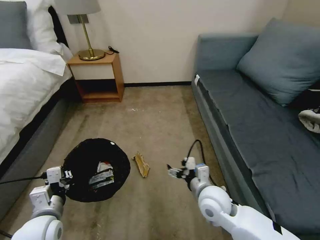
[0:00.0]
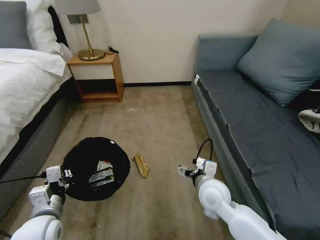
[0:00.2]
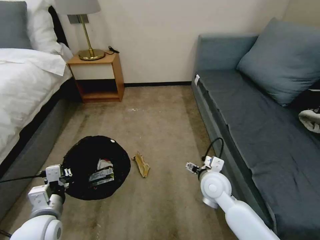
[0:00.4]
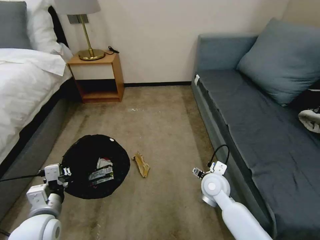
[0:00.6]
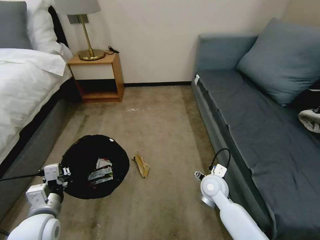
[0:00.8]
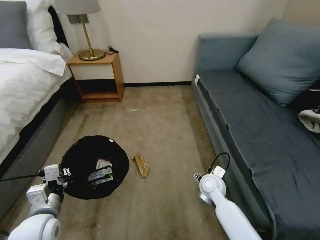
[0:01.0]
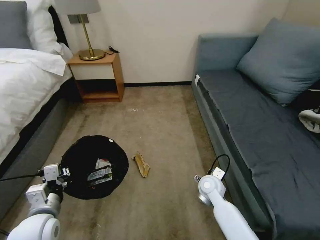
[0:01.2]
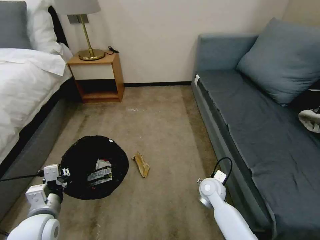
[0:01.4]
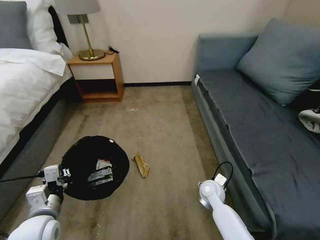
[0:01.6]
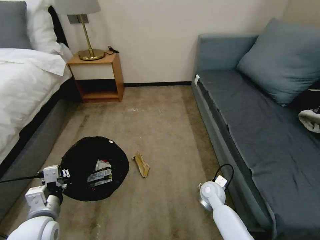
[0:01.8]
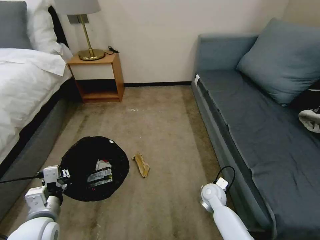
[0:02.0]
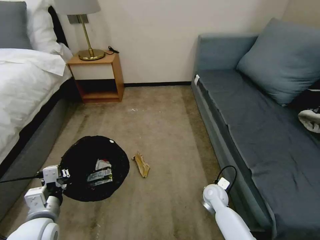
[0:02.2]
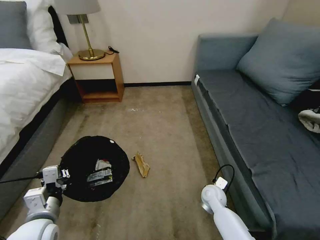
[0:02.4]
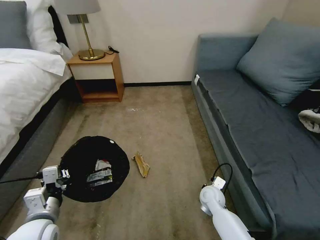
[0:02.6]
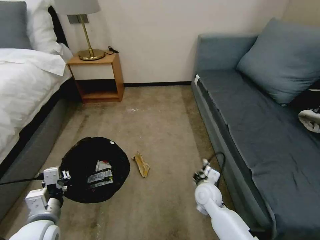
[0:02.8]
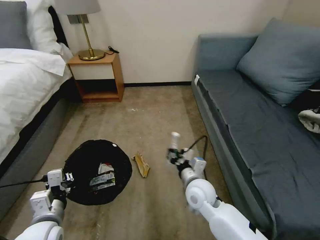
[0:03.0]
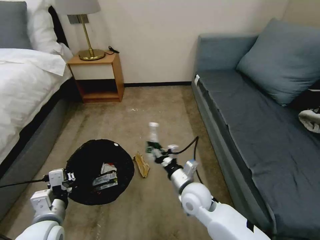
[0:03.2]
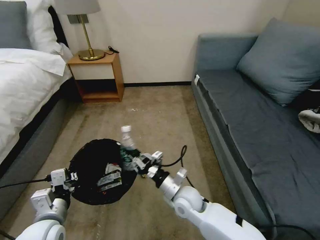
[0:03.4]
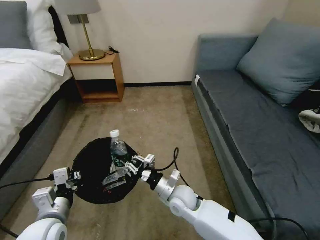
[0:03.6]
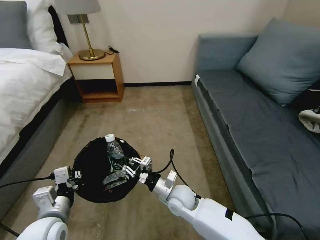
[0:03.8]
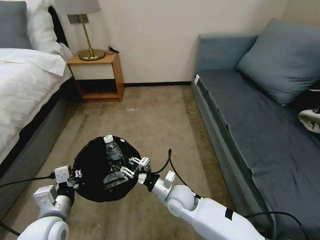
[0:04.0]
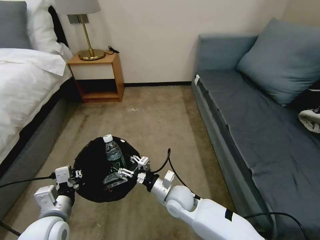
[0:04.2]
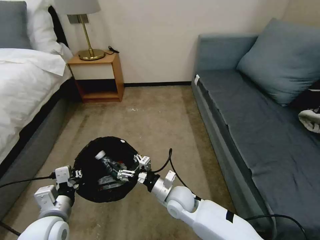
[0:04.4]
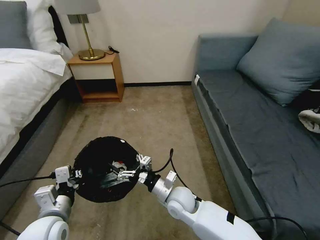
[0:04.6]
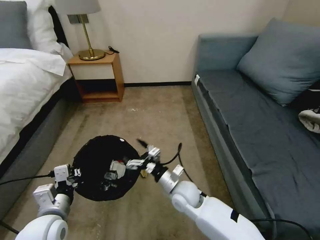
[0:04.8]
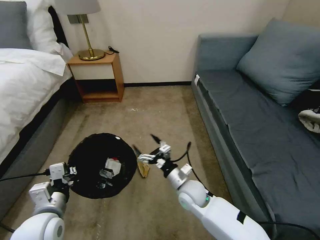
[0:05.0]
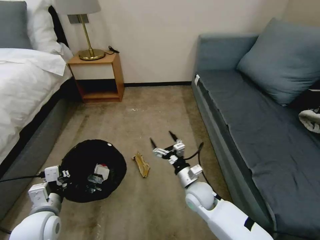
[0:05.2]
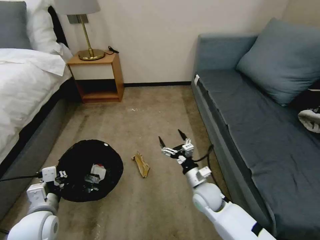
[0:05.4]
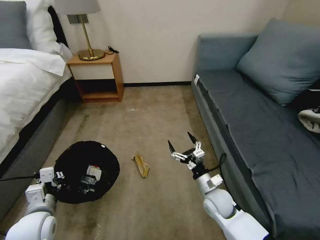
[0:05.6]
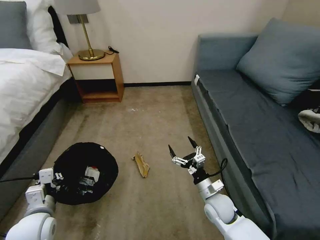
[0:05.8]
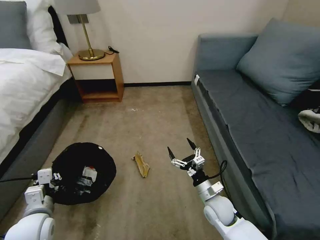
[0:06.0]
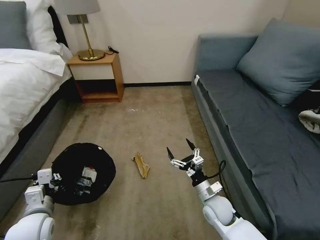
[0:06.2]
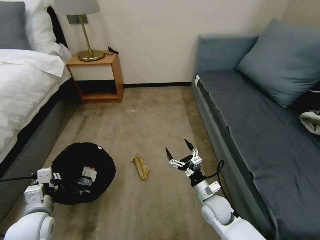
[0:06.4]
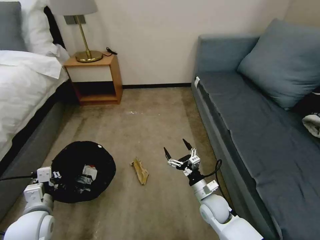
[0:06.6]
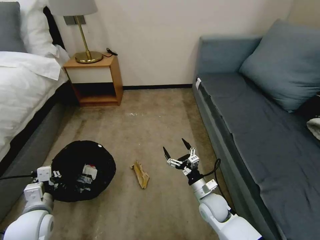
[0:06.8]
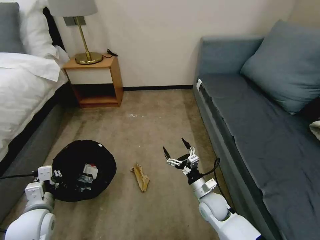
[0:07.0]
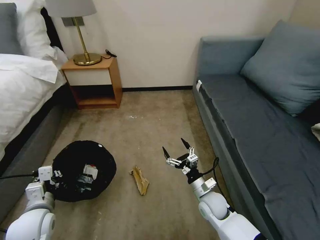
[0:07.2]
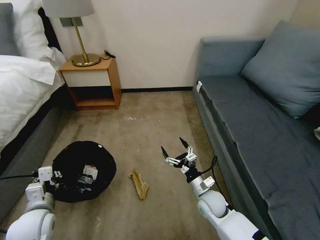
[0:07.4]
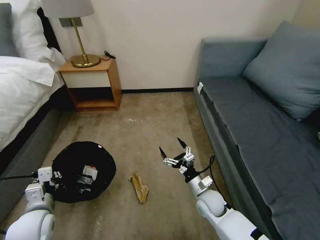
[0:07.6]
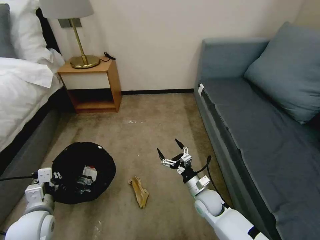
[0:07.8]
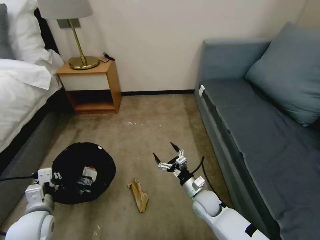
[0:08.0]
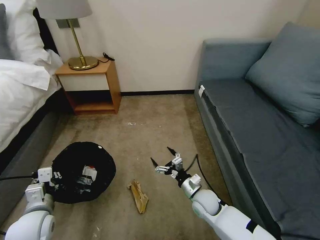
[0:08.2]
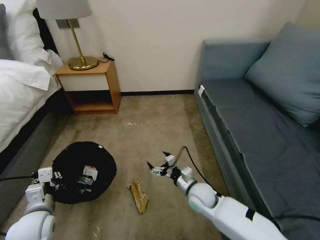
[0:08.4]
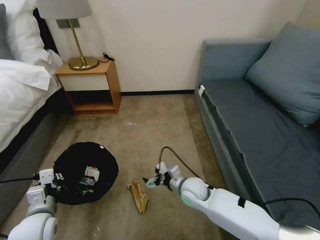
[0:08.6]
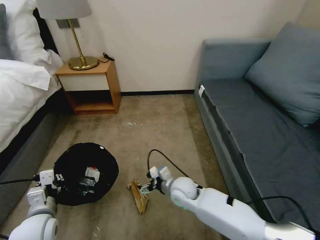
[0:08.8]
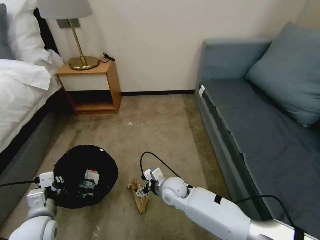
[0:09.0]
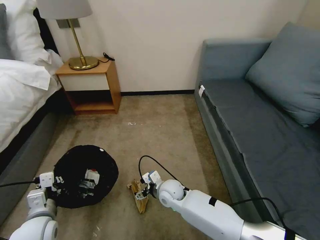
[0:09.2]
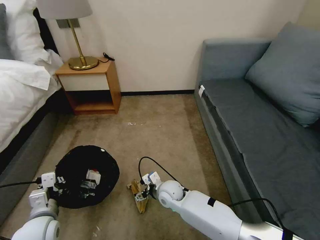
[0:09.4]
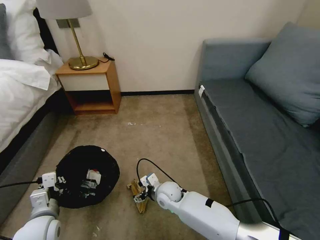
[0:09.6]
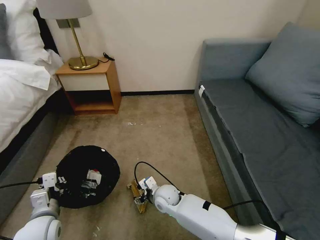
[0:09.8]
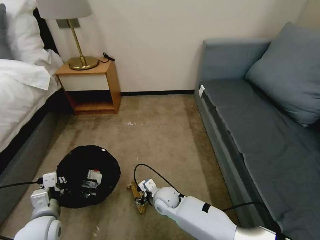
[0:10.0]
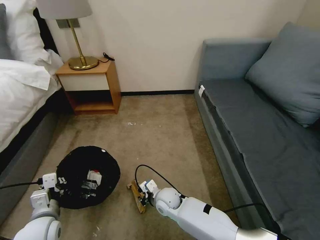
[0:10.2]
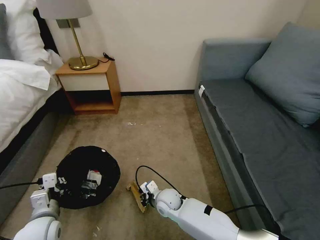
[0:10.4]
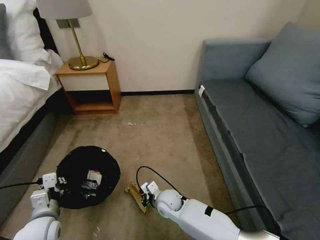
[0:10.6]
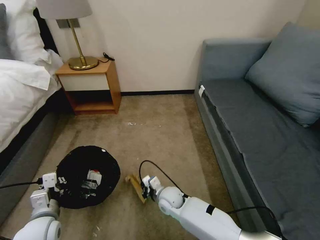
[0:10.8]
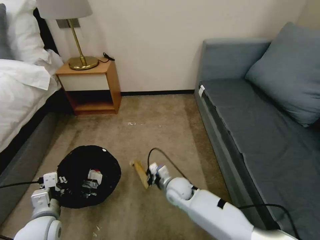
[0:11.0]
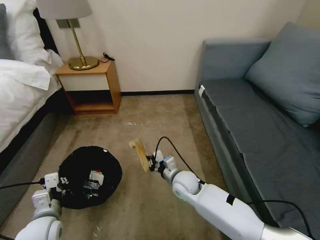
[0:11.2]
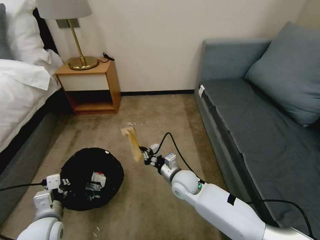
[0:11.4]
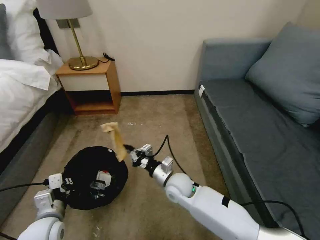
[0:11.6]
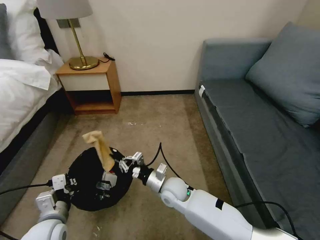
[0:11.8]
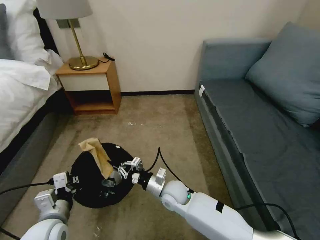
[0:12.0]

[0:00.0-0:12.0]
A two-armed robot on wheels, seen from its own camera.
Task of the whole recording: Pick up the trash bin, then pick up the garbage on the floor and place it into the trash bin.
0:00.0 to 0:01.6: The right gripper is displaced downward and forward by about 15 cm.
0:01.6 to 0:03.0: The right gripper travels upward and to the left by roughly 10 cm, and closes.
0:03.0 to 0:04.4: The right gripper moves to the left, some 5 cm, and opens.
0:04.4 to 0:06.0: The right gripper moves to the right, roughly 15 cm. The left gripper is displaced to the left by about 5 cm.
0:07.6 to 0:09.0: The right gripper heads to the left, covering some 15 cm.
0:09.0 to 0:10.4: The right gripper heads downward, covering some 5 cm, and closes.
0:10.4 to 0:12.0: The right gripper shifts approximately 5 cm upward.

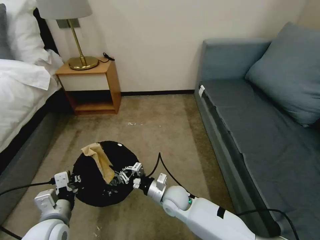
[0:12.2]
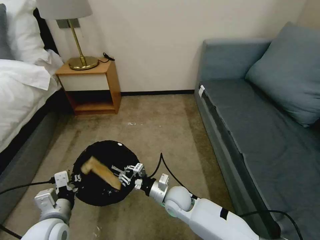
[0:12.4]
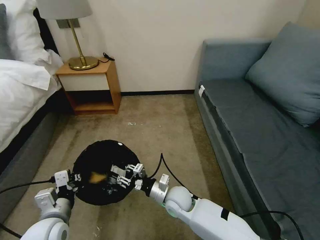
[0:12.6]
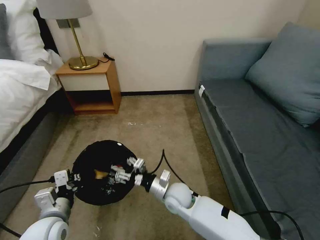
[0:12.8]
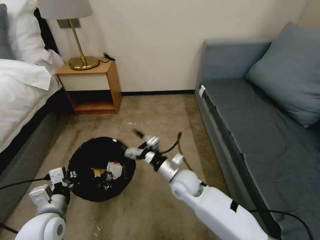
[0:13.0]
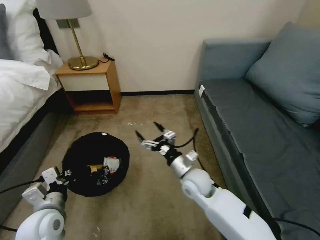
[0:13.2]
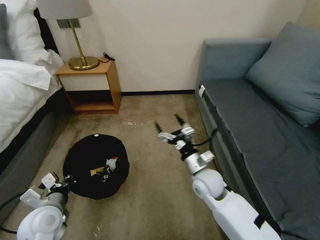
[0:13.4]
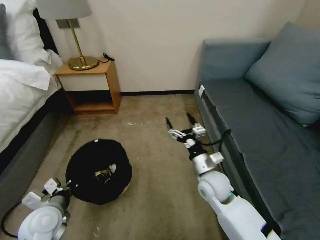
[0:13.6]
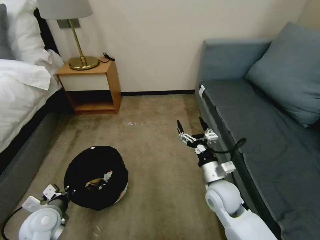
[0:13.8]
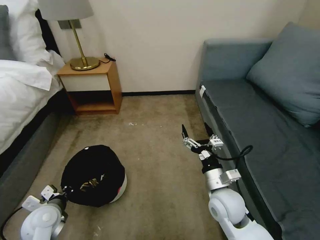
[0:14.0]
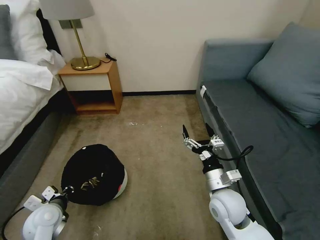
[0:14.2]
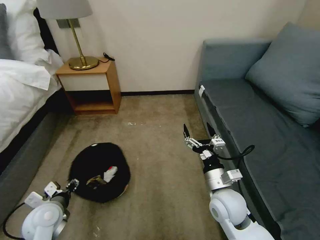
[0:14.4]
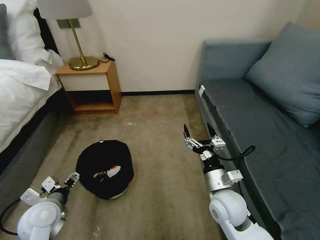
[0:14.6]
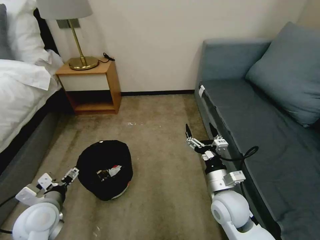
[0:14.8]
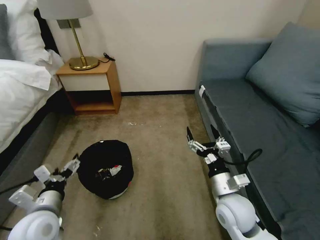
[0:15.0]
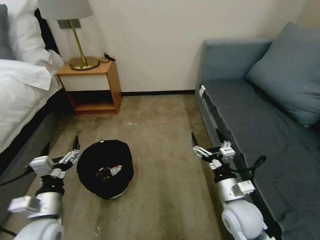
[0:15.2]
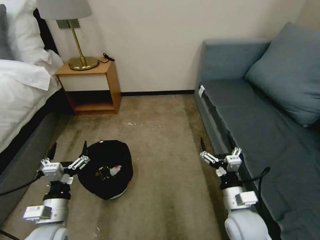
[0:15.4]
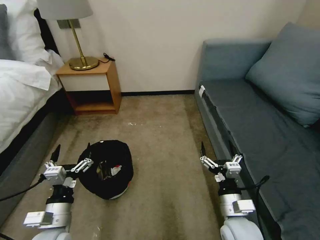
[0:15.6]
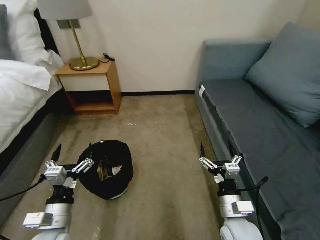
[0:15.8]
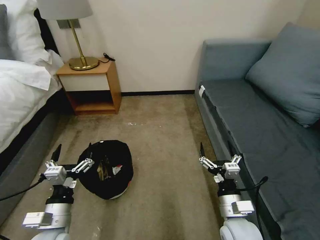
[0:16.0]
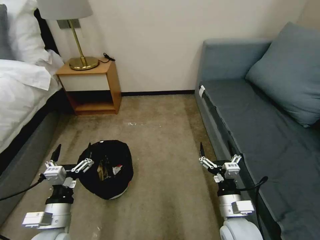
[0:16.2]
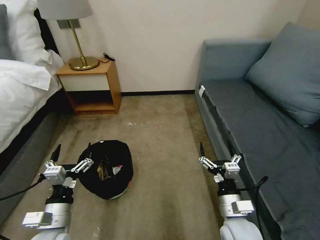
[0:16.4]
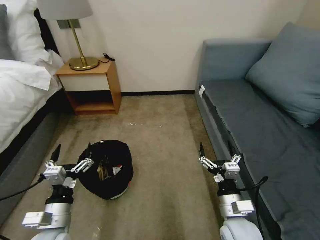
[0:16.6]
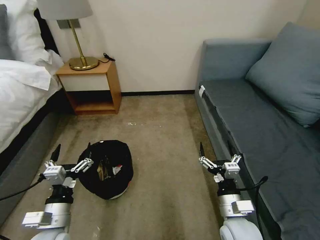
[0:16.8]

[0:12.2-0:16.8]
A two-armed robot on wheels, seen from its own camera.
Task of the whole recording: Pick up the trash bin, then pick up the garbage on the floor and place it into the trash bin.
0:12.2 to 0:13.8: The left gripper shifts about 5 cm to the left; the right gripper moves to the right and upward, roughly 15 cm, and opens.
0:13.8 to 0:15.2: The left gripper moves upward and to the right, some 10 cm, and opens up. The right gripper is displaced backward by roughly 5 cm.
0:15.2 to 0:16.8: The grippers stay close to where they were, moving slightly.
